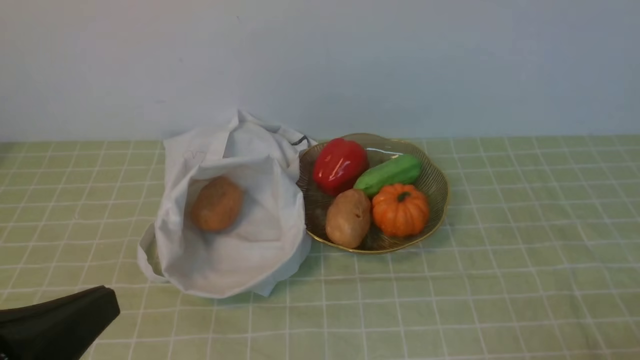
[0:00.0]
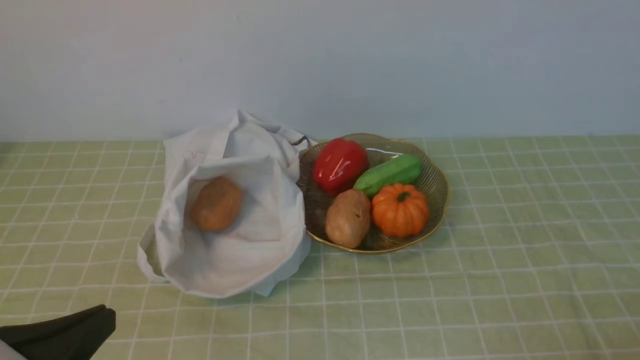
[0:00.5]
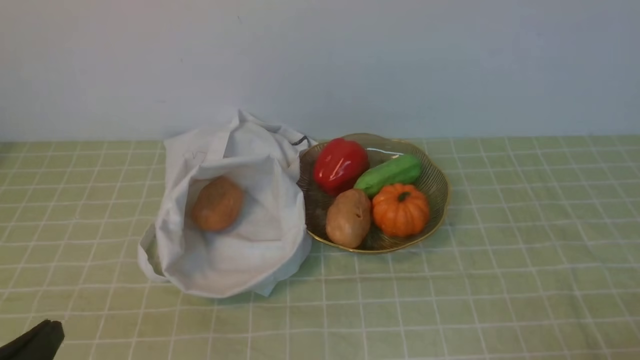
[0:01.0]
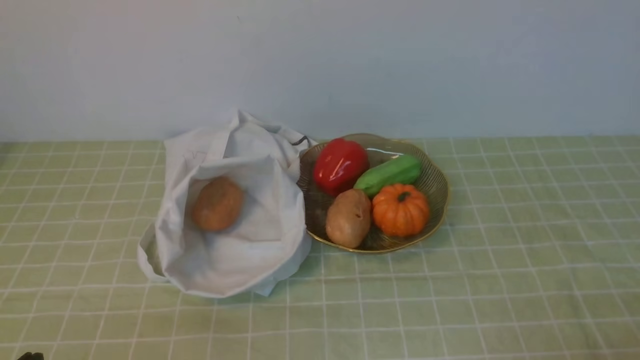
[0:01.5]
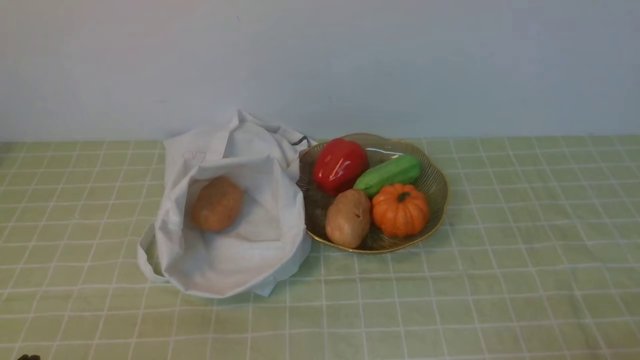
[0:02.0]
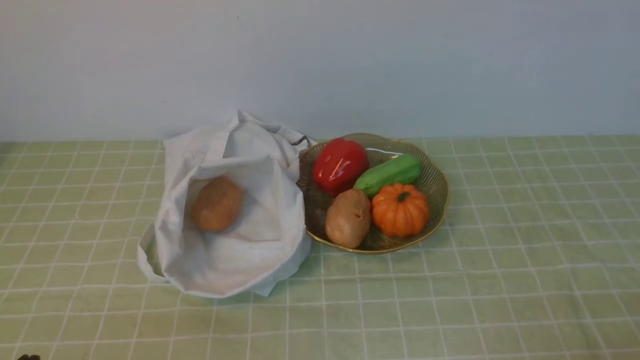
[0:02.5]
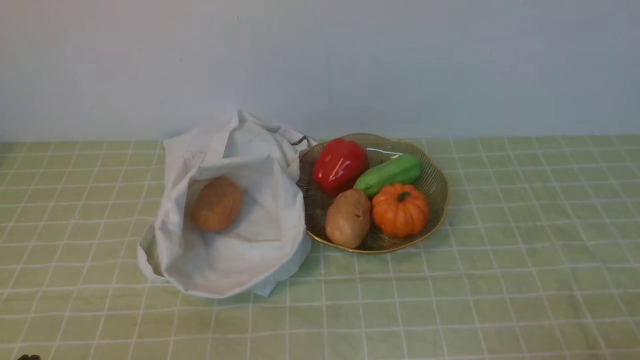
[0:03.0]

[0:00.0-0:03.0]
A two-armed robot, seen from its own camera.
Task of the whole recording: take vegetables from bag on green coffee tablecloth place on plate.
0:00.0 to 0:01.5: The left gripper shifts about 10 cm downward.
0:01.5 to 0:03.0: Both grippers stay put.
